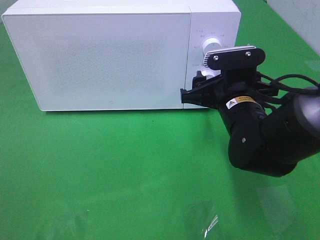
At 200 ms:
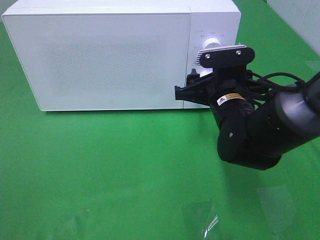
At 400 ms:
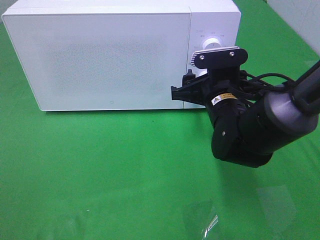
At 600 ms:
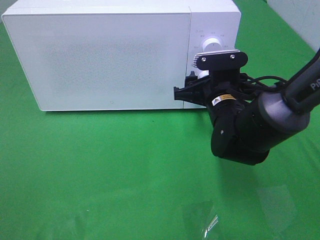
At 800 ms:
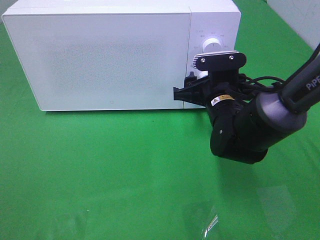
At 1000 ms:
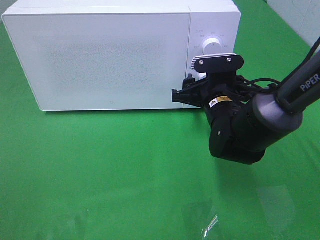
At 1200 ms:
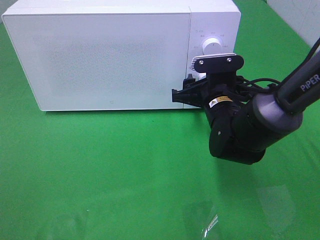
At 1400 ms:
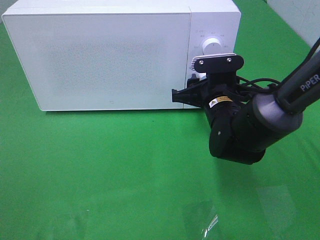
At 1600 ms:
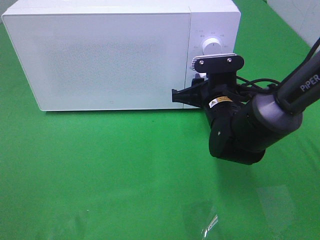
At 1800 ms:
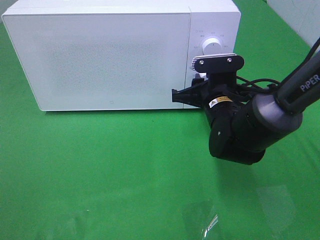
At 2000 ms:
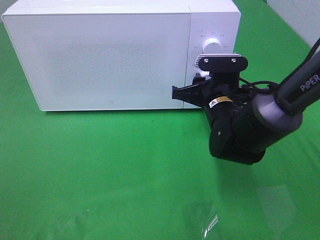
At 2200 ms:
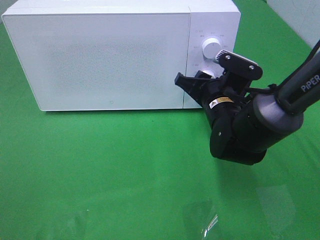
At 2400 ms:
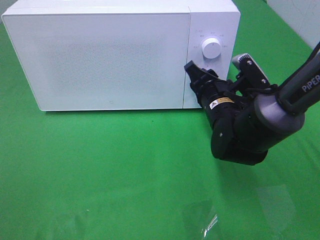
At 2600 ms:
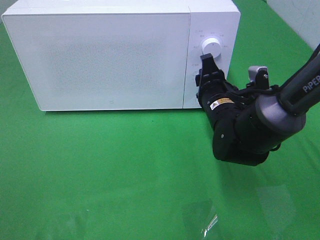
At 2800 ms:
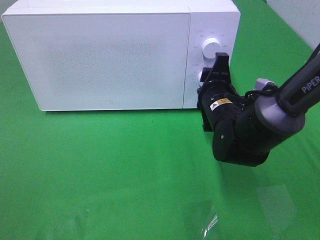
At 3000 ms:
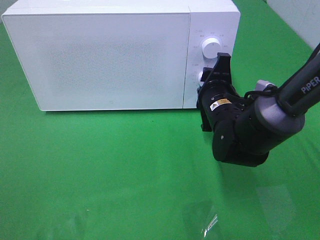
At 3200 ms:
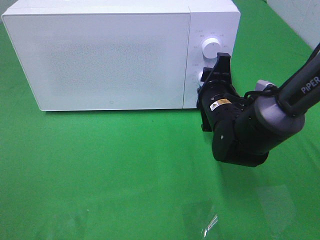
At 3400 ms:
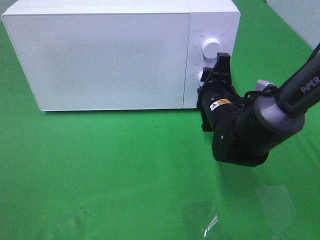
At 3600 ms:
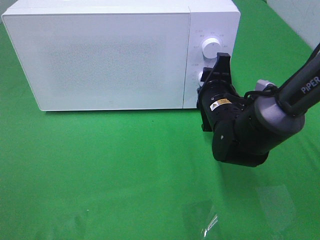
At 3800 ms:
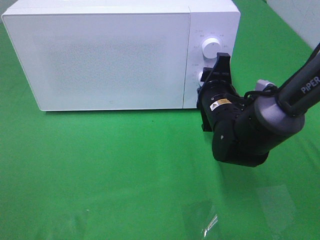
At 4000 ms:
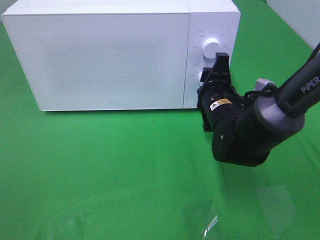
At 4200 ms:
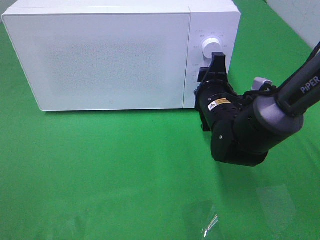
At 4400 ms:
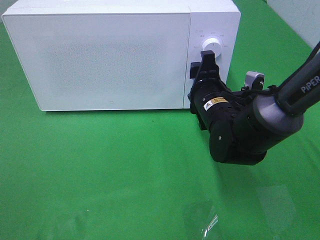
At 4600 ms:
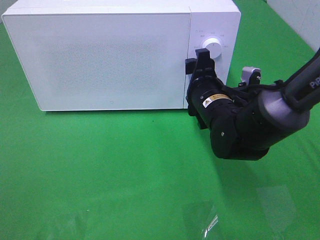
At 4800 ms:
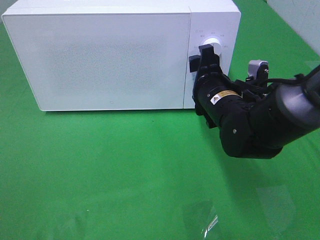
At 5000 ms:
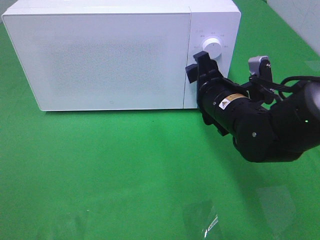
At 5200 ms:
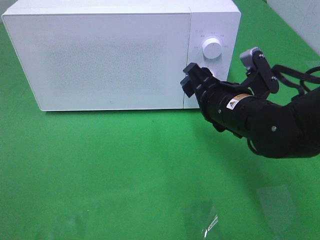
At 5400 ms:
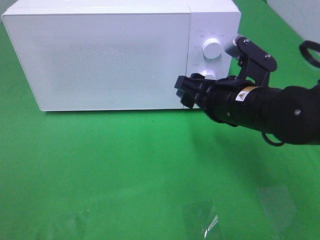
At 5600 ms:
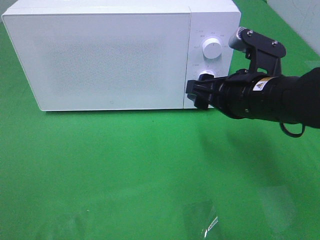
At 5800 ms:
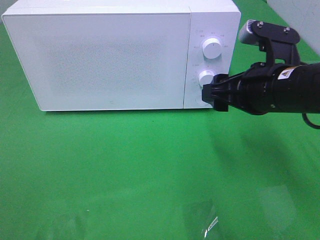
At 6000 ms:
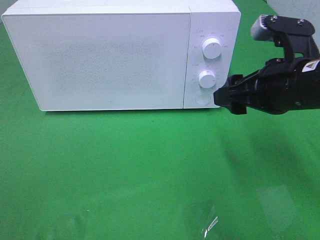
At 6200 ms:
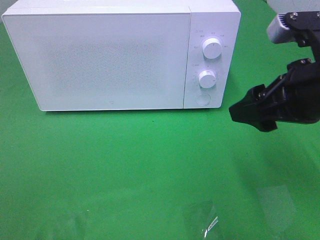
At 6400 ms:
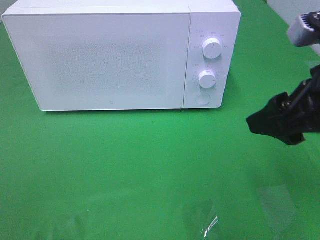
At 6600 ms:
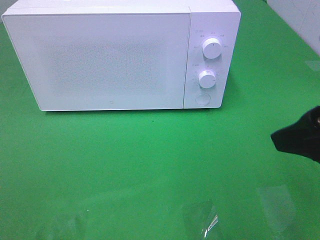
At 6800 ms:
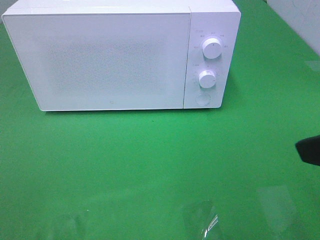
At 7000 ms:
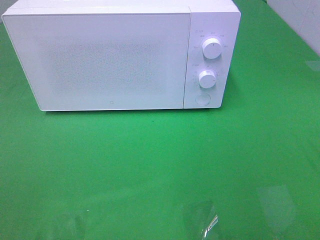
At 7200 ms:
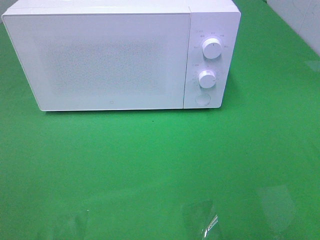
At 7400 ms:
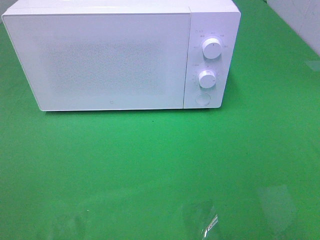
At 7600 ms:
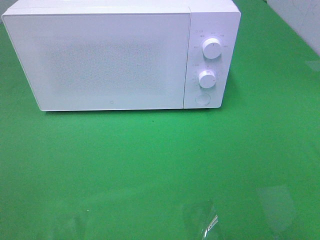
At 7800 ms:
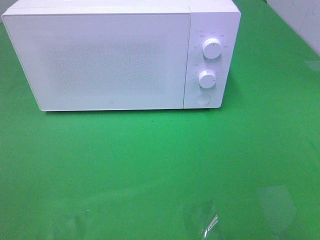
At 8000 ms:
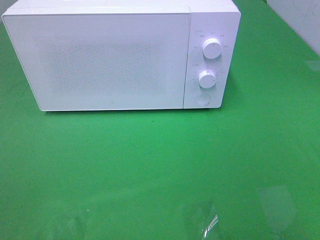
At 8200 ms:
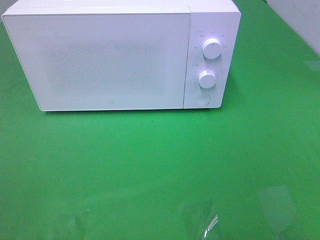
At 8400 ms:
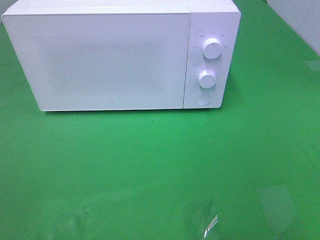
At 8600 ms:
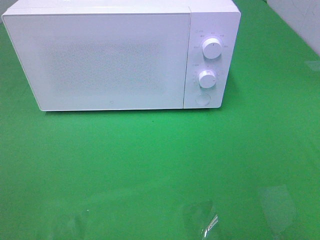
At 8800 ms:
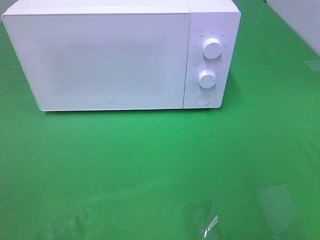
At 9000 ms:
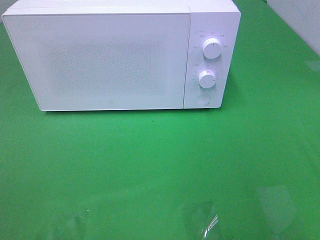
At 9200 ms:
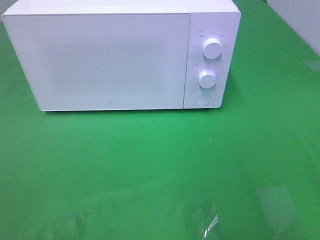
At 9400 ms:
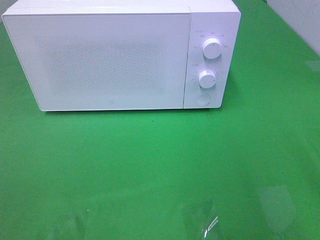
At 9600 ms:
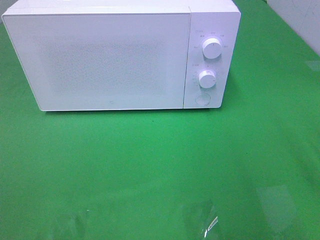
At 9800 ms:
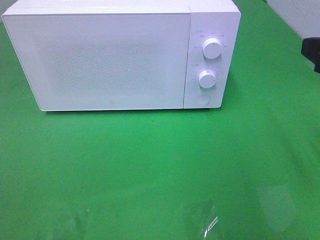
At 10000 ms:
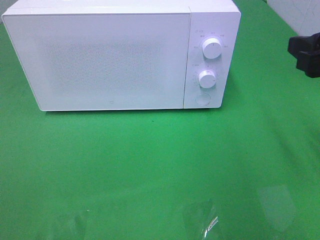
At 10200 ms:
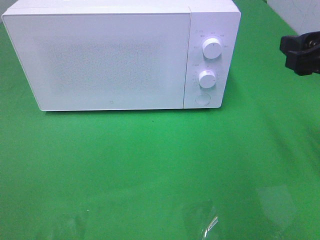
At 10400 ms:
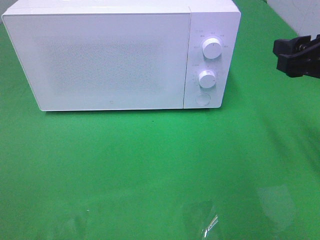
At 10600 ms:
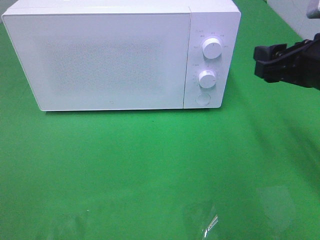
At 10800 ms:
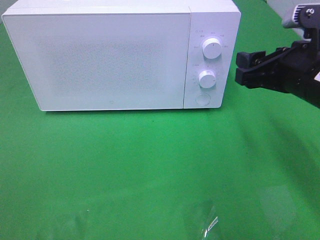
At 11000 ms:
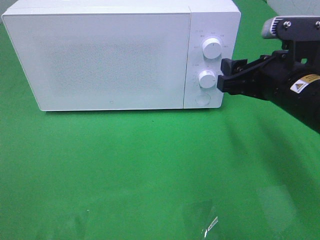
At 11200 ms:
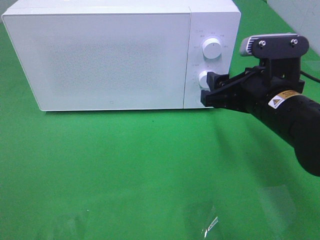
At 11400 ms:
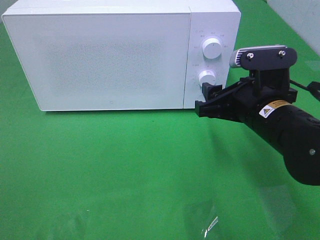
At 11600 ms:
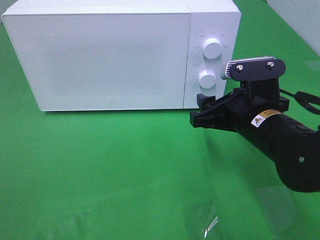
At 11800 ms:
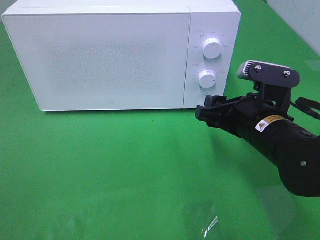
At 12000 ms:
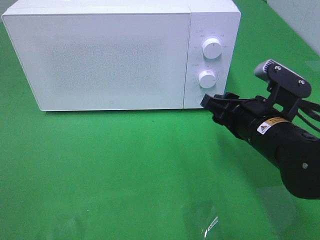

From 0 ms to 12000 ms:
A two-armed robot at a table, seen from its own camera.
Task of the whole recording: Heat the burger.
Step, from 0 ms to 4800 ms: Right hand: twist timer button.
From 0 ms to 1600 ms: The right gripper ends up some 5 cm from where it was.
From 3000 ms to 4400 ms: The grippers move only a little.
From 4400 ms to 6000 ms: The right gripper travels upward, to the right and backward by about 15 cm.
From 6000 ms to 7600 ms: The right gripper moves backward and to the right, some 25 cm.
From 9000 ms to 10400 ms: The right gripper heads forward and downward, covering some 20 cm.
From 10400 ms to 12000 ms: The right gripper is displaced downward and to the left by about 15 cm.

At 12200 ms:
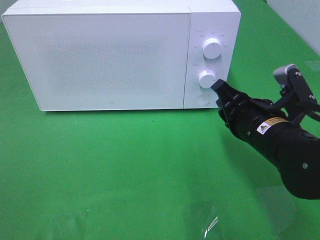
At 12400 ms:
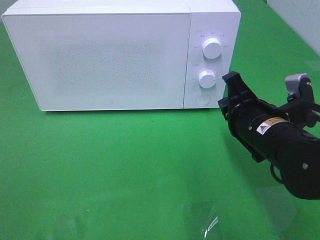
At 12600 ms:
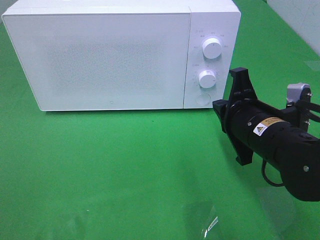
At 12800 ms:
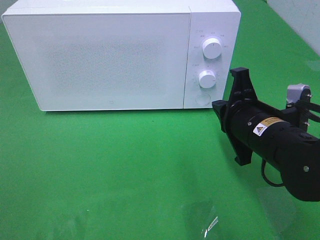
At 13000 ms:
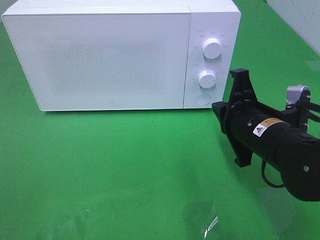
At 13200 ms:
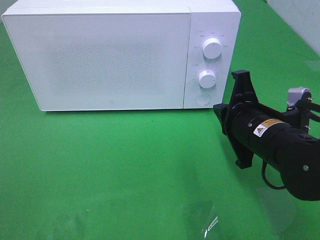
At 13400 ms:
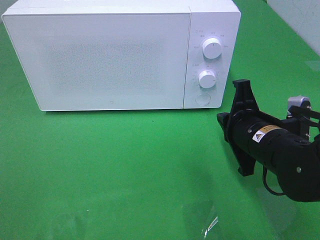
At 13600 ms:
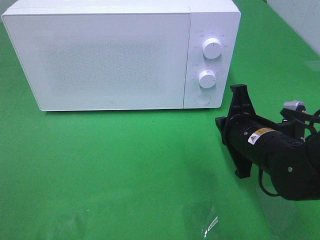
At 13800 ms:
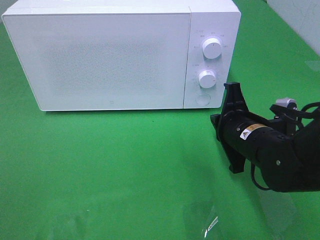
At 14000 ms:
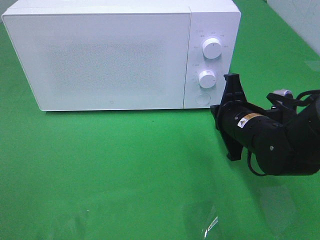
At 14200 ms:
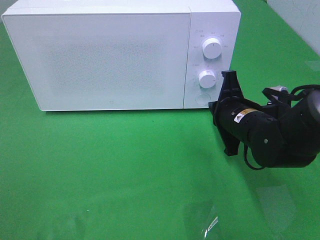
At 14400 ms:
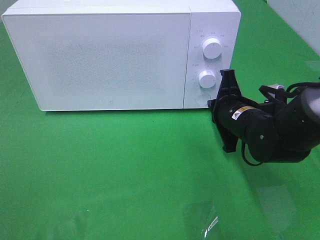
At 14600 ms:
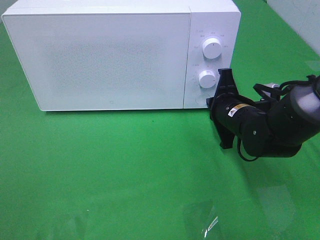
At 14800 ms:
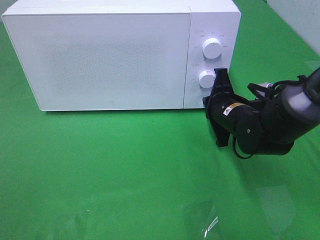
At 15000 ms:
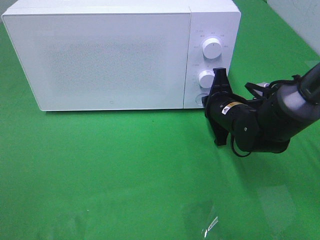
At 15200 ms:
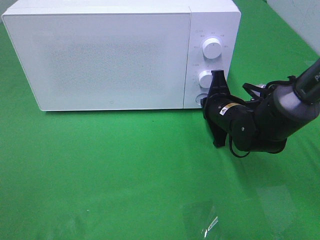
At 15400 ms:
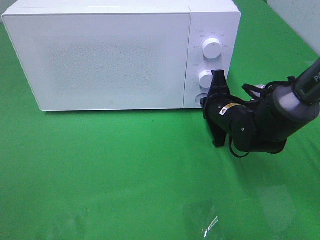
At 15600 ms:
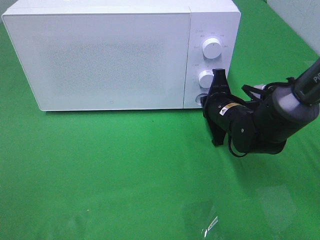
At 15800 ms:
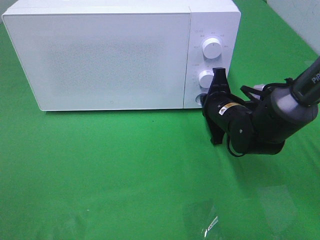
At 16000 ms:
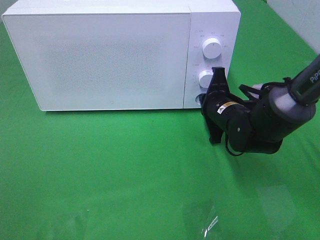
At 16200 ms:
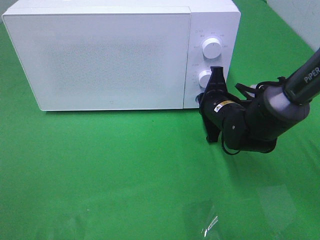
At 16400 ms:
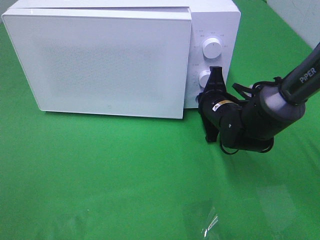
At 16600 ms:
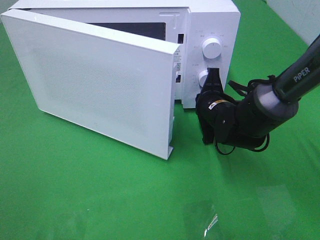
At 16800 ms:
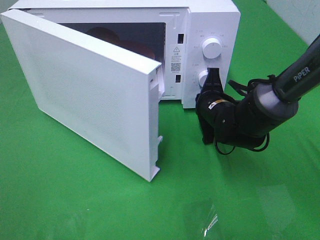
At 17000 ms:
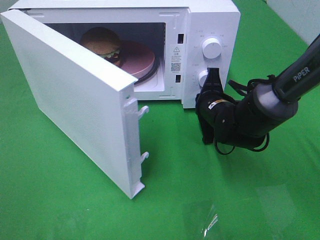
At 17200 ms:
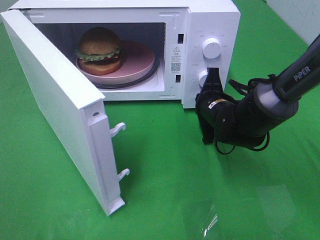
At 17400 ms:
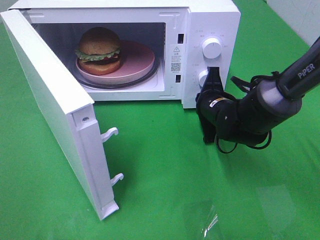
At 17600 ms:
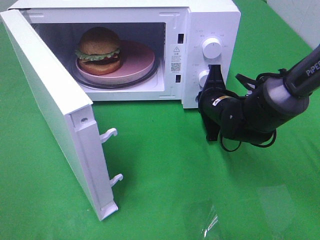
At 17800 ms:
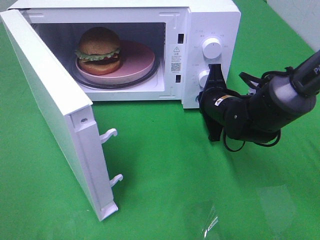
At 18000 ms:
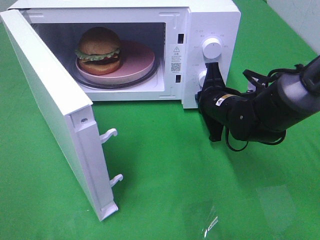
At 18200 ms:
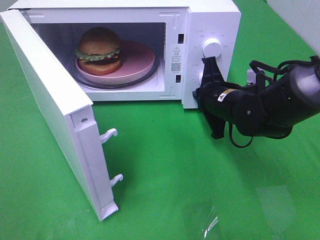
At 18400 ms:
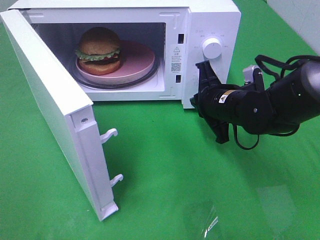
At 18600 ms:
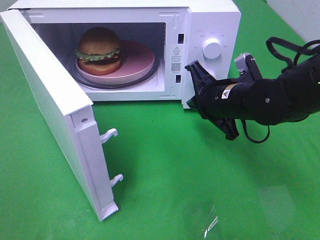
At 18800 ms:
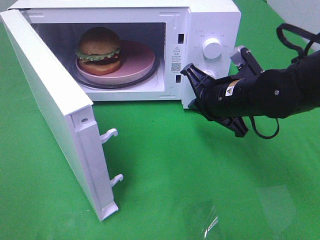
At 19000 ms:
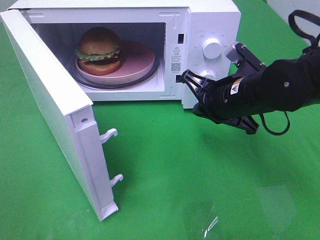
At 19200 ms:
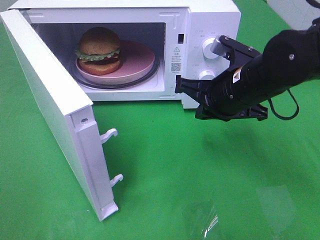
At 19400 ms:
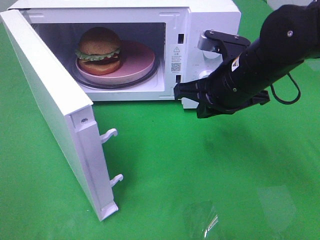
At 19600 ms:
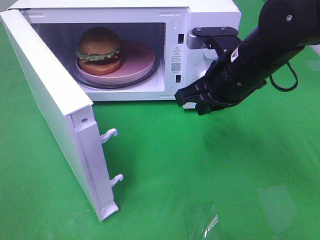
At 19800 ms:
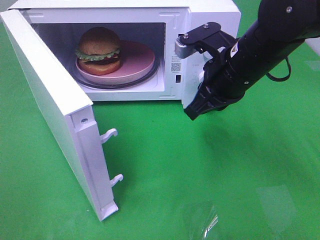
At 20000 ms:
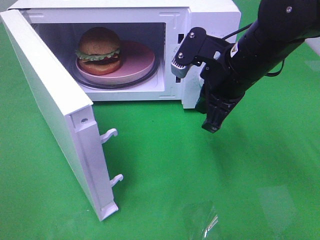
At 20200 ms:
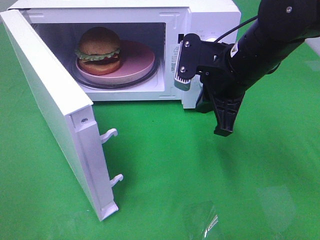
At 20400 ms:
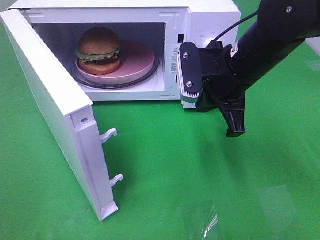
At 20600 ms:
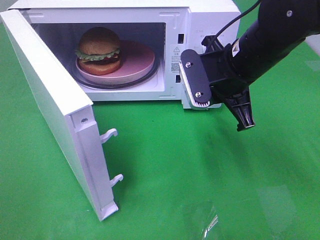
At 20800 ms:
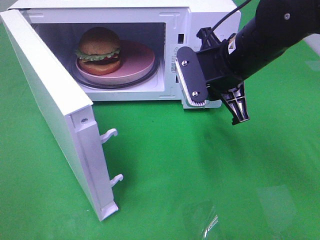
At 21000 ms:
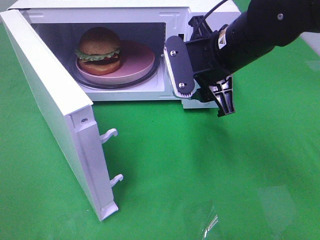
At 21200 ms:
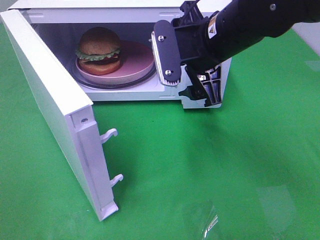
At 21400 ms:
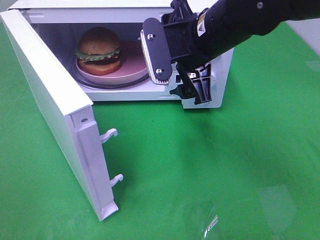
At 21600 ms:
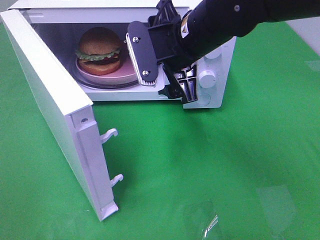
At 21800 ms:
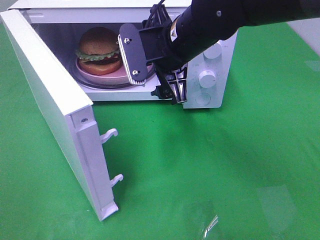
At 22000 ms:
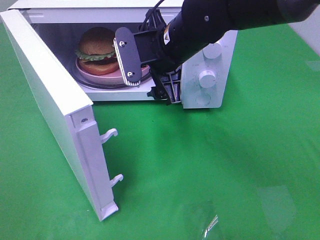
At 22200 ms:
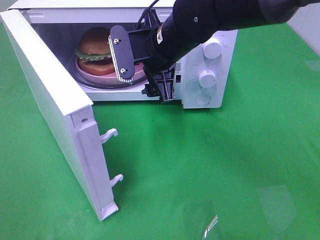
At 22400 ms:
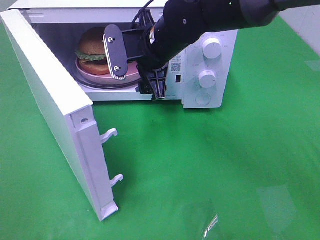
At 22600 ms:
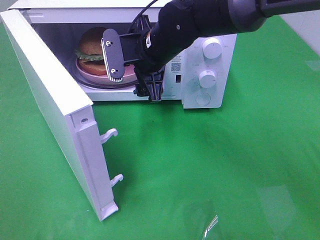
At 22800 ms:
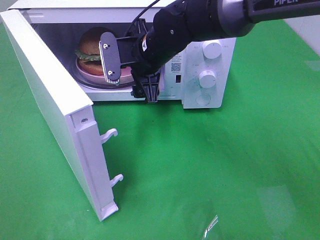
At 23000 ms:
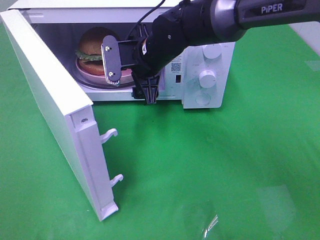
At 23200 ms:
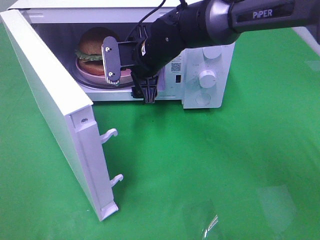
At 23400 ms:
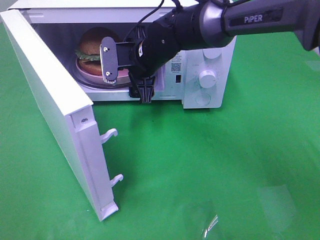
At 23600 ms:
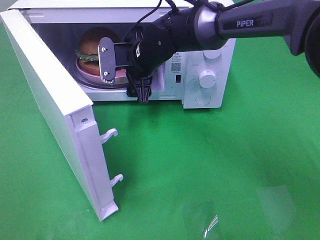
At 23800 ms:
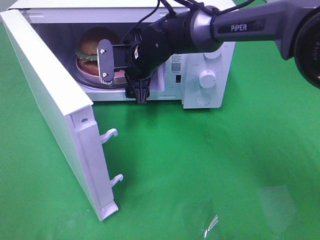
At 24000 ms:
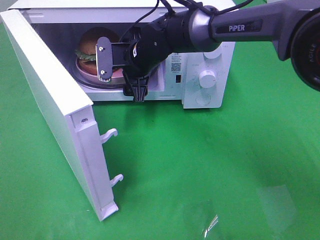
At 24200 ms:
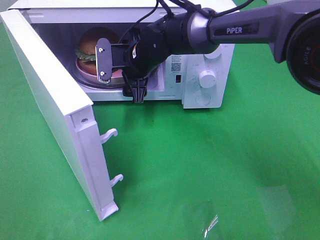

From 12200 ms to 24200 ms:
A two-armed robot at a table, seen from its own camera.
Task of the whole recording: Heat the burger.
Step, from 12200 ms to 18400 ms: Right hand: press the switch.
From 13800 ms to 15200 ms: The right gripper moves forward, roughly 10 cm.
From 15200 ms to 16600 ms: The grippers make only small movements.
From 18200 ms to 19800 ms: The right gripper travels upward by some 10 cm.
From 19800 ms to 21200 ms: The right gripper ends up approximately 5 cm from where it was, and opens up.
From 21200 ms to 22600 ms: The right gripper moves to the left, forward and downward, about 10 cm.
From 22600 ms to 24200 ms: The right gripper goes roughly 5 cm downward and forward.
